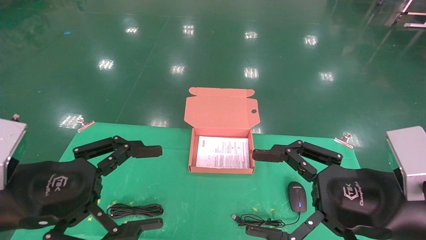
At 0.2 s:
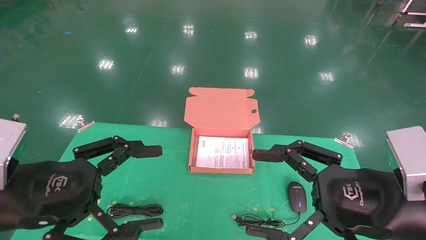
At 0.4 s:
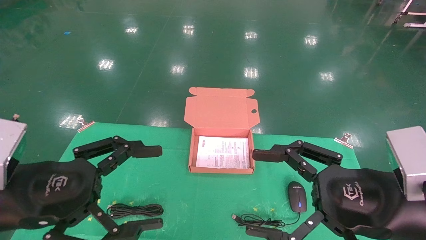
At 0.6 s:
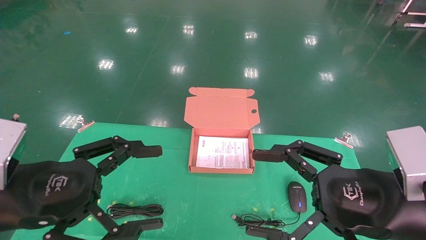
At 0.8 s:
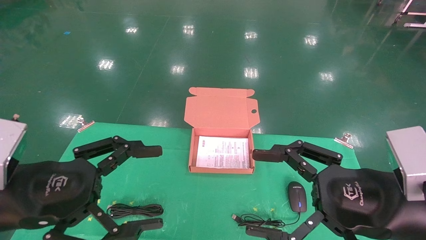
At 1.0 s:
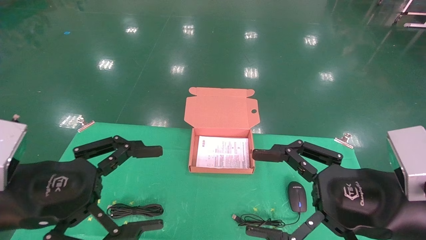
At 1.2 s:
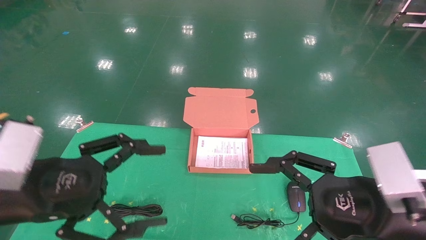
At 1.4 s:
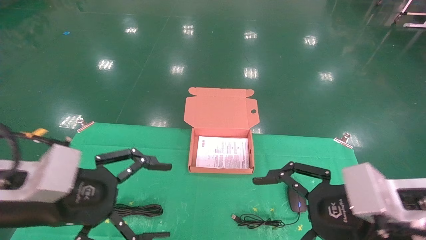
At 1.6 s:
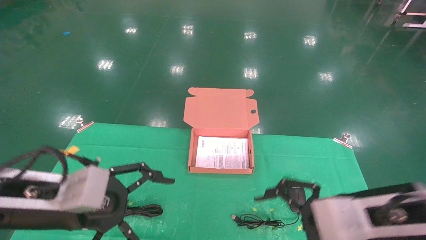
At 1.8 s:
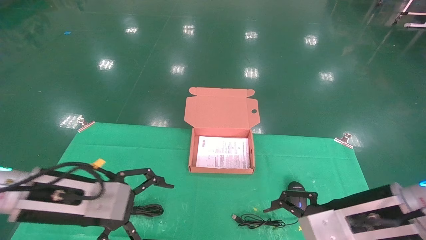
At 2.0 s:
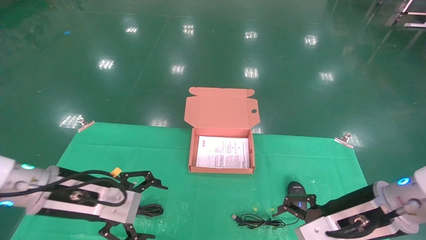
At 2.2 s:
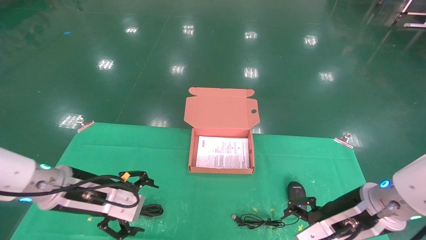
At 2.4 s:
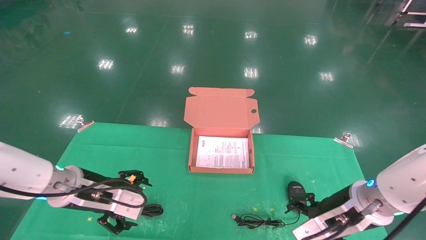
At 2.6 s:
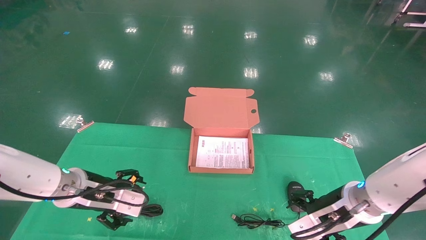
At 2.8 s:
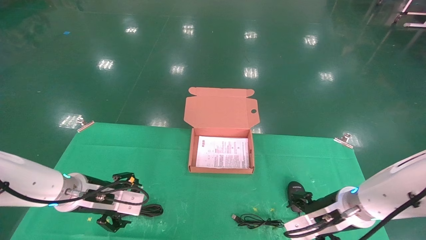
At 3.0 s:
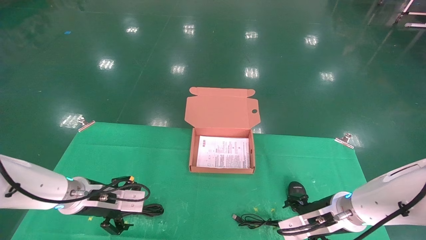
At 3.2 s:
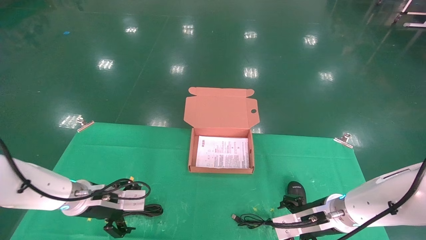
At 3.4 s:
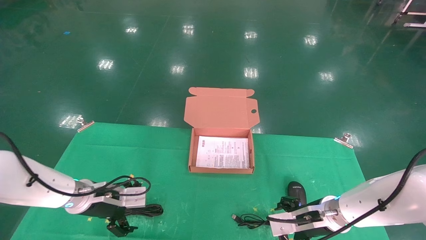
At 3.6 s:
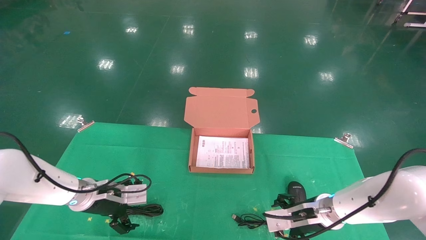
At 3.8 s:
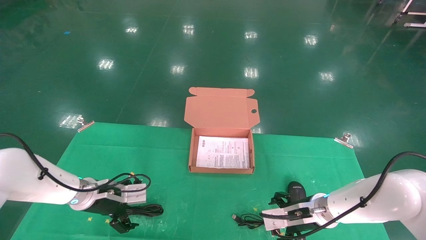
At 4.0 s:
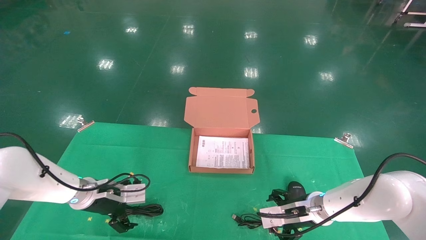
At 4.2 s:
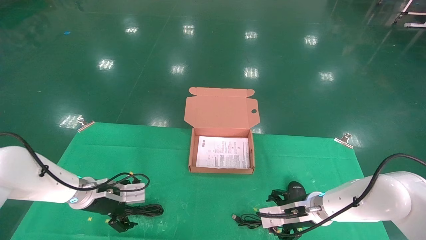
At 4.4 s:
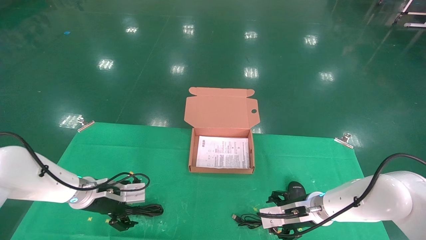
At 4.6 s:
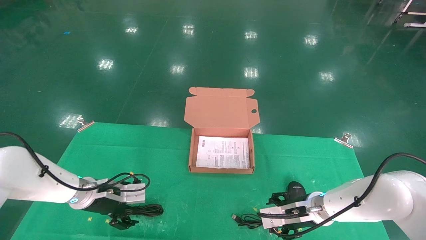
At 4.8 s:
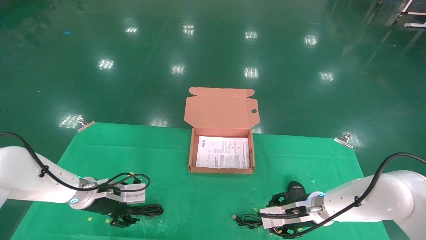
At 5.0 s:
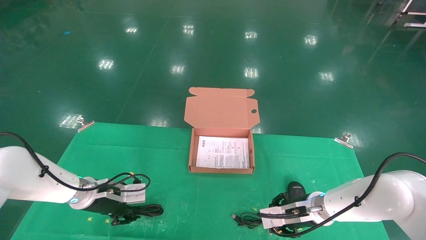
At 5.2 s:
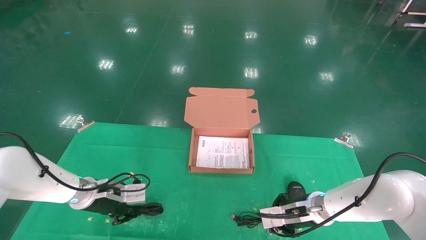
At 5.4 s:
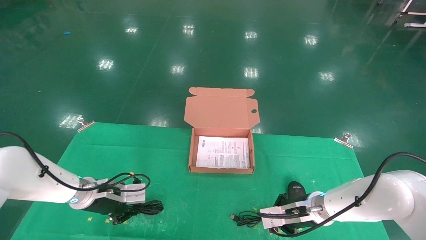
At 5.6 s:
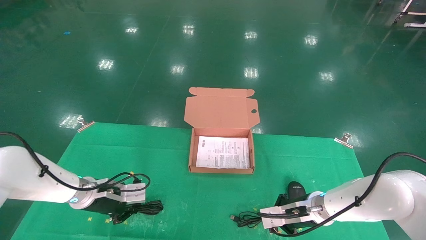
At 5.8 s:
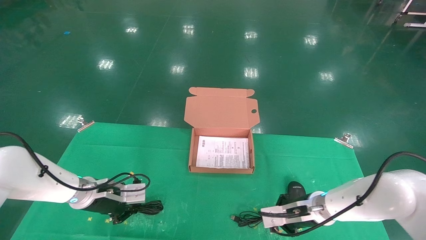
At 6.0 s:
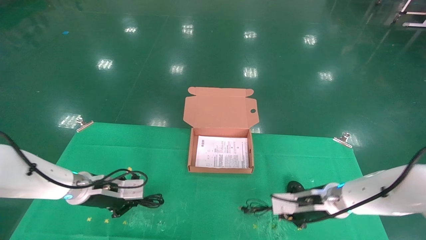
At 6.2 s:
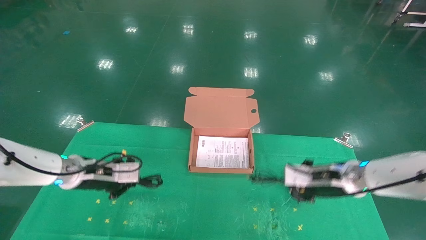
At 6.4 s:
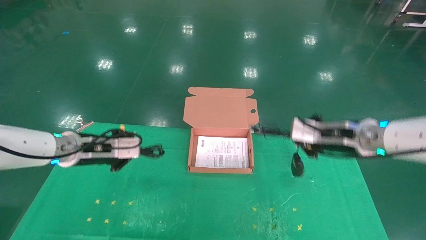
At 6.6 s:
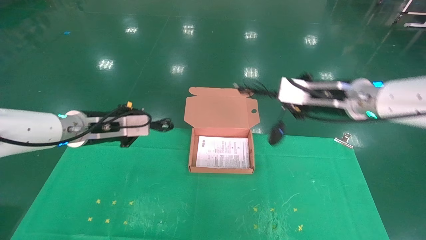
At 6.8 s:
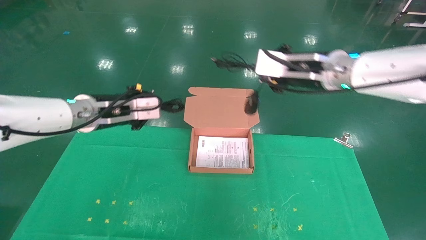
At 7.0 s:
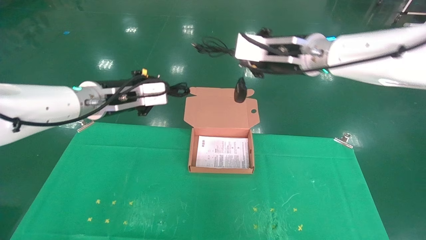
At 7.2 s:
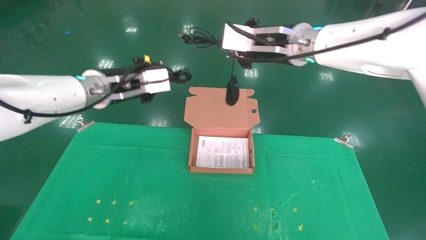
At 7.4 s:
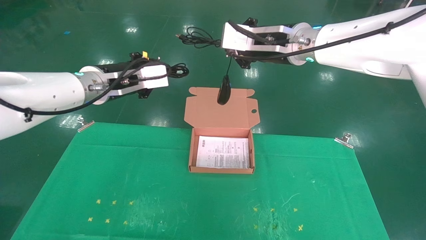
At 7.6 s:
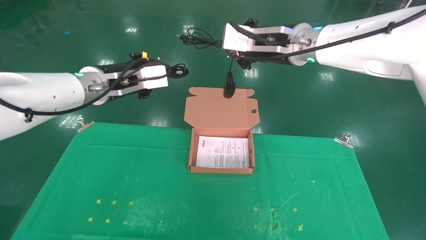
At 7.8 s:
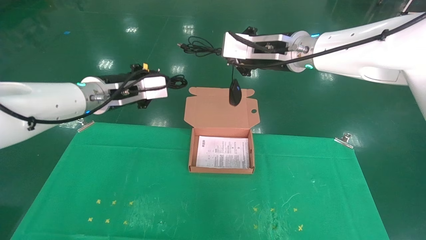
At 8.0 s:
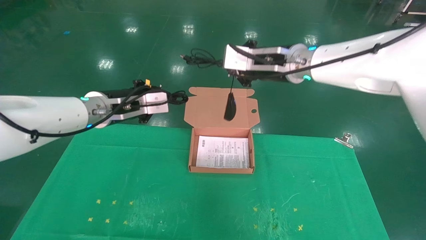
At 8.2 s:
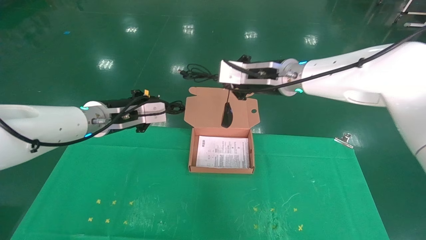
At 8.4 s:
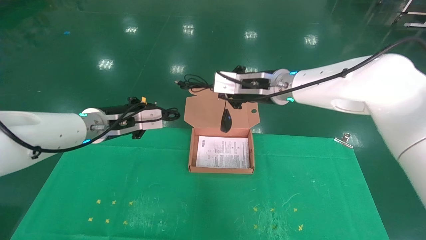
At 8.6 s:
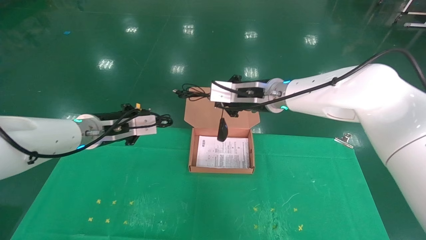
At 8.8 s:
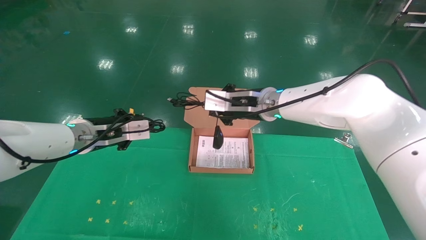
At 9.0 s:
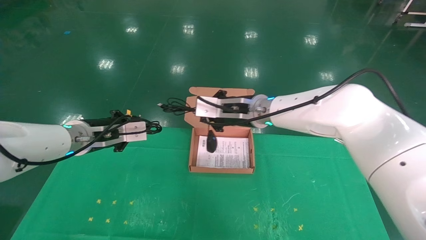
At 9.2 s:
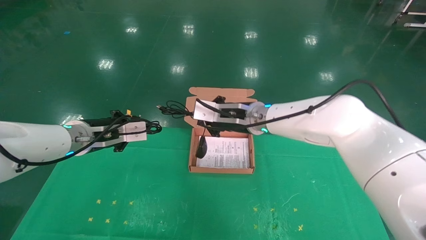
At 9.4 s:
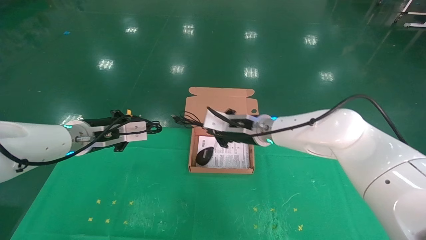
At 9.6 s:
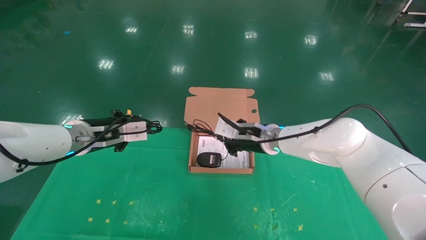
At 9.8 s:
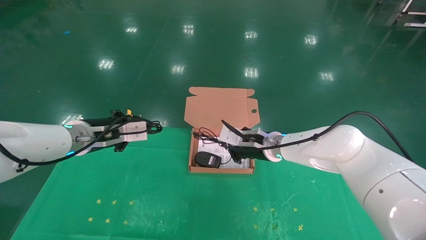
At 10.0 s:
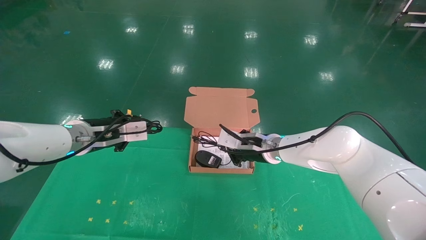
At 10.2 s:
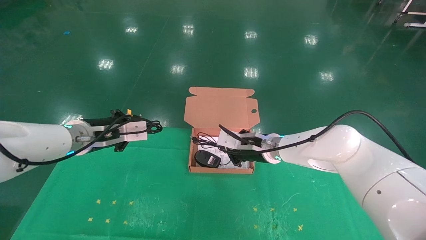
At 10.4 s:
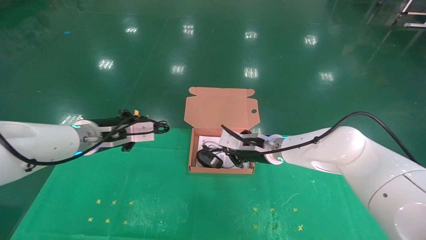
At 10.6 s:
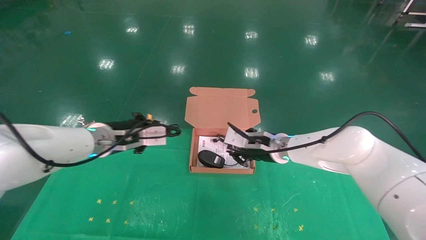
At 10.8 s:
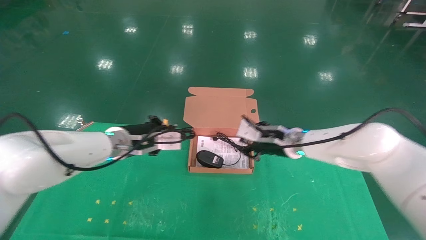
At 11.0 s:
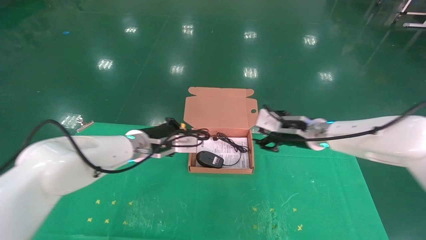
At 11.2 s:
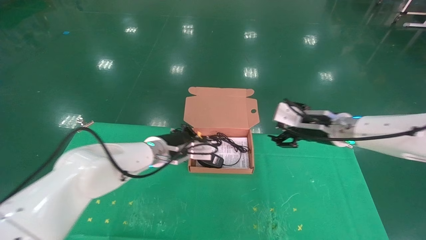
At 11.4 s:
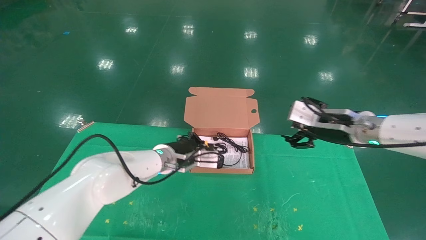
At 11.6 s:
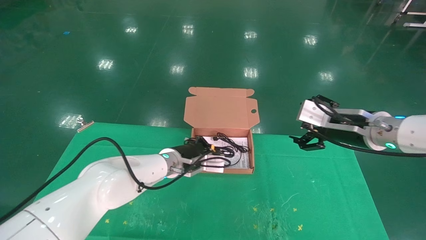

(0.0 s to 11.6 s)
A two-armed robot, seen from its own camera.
Task of the whole recording: grasp data cable left put into box grasp mouse right put into box.
Step, 1.2 s - 5.6 s: Grab and pick up both the mouse and power cord from the accessory packaging area at the same time.
1.4 s - 2.8 s: Both grippers travel together forward and downward, about 15 cm.
2.8 s - 4.4 s: Both grippers travel together forward and downward, some 10 cm.
4.4 s - 5.8 s: The right gripper closes up; the left gripper closes its fingers.
5.8 s - 7.2 s: Both grippers move upward, some 30 cm.
7.2 s - 8.8 s: Both grippers travel together downward, approximately 10 cm.
8.8 s - 10.2 s: The right gripper moves downward, some 10 cm.
10.2 s - 11.6 s: The right gripper heads to the right, backward and upward, covering some 20 cm, and opens its fingers. The left gripper moves to the right and downward, about 20 cm.

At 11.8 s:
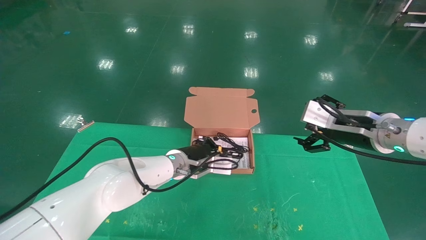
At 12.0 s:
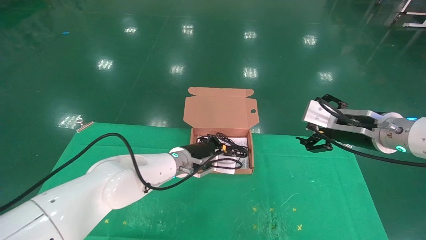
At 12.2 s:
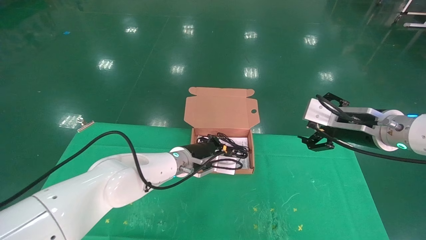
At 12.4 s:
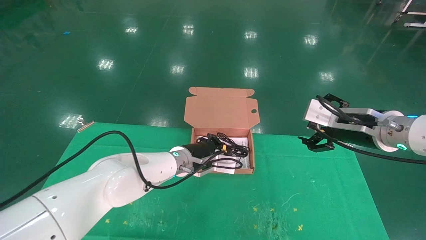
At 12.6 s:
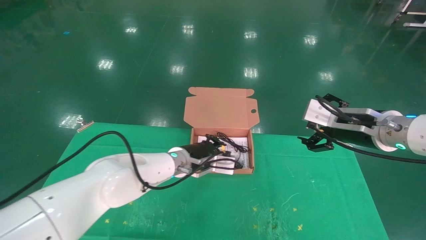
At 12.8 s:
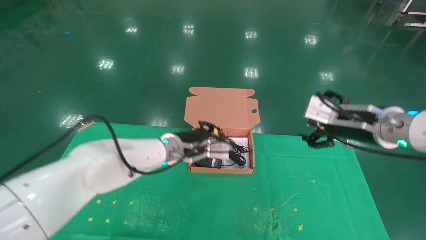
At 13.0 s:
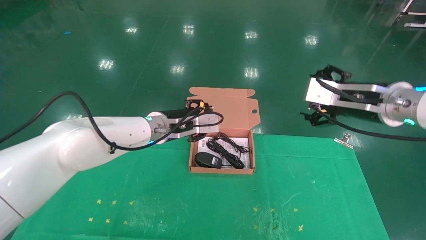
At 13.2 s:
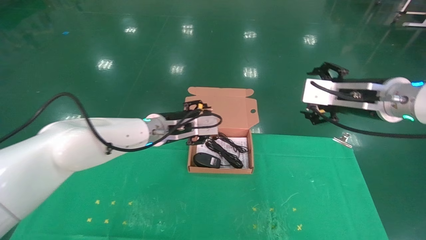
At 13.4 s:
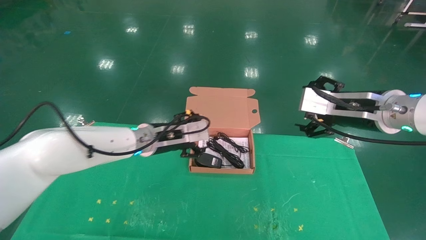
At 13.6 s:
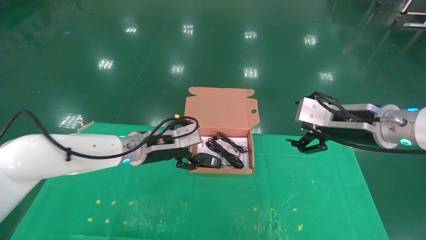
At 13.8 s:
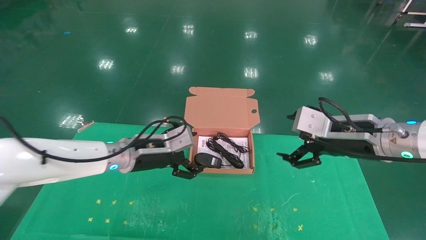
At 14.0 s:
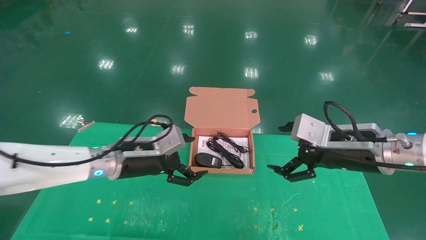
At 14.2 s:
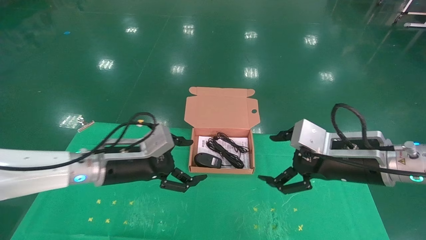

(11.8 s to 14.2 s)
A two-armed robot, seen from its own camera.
Task of the whole recording: grasp data cable left put into box grasp mouse right put into box.
11.8 s - 13.0 s: The left gripper shifts approximately 10 cm upward, and opens up, while the right gripper heads upward, covering about 5 cm.
13.0 s - 14.2 s: The left gripper goes approximately 10 cm backward and to the left, and opens up; the right gripper travels downward by some 5 cm.
